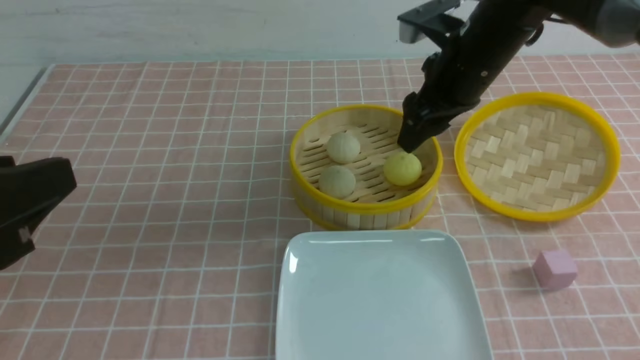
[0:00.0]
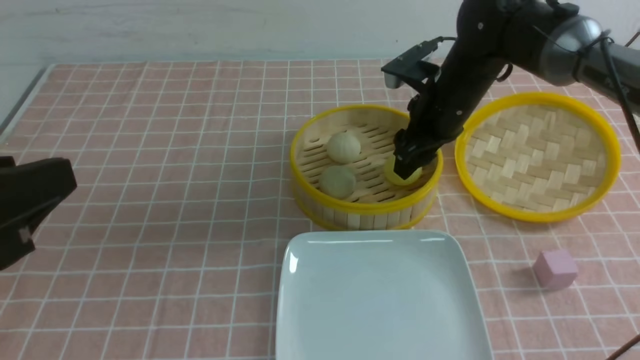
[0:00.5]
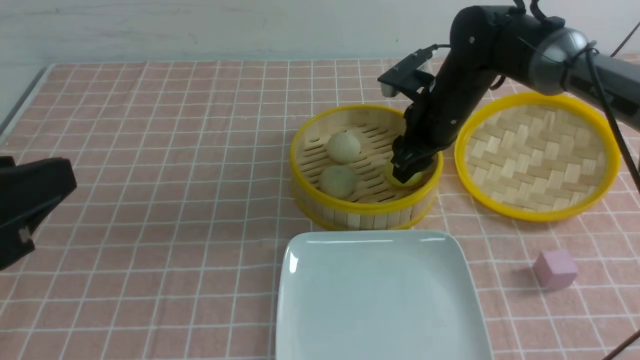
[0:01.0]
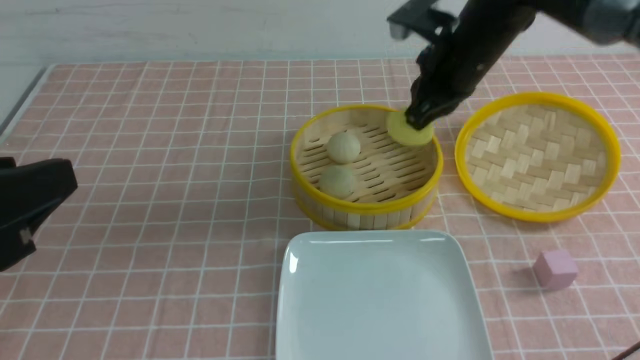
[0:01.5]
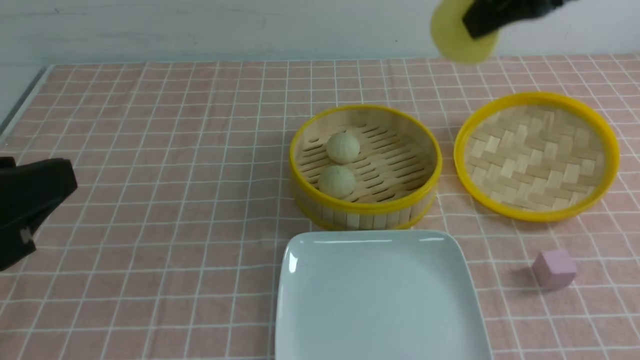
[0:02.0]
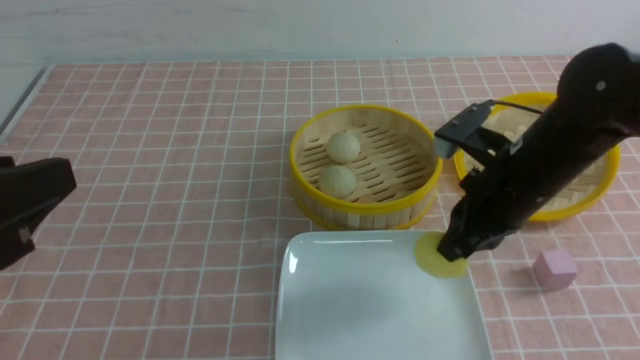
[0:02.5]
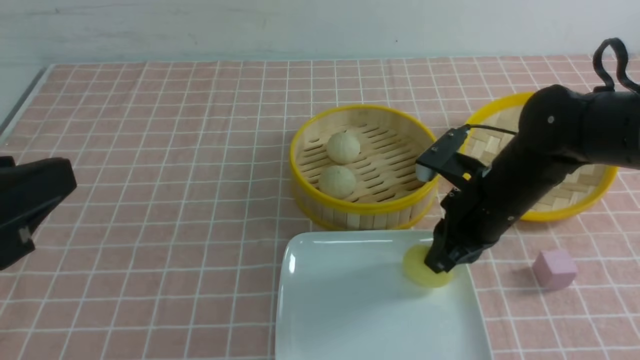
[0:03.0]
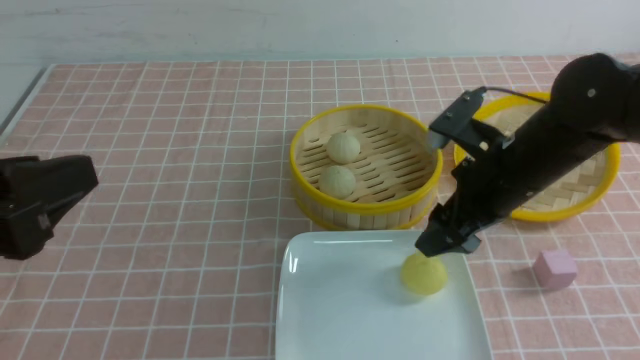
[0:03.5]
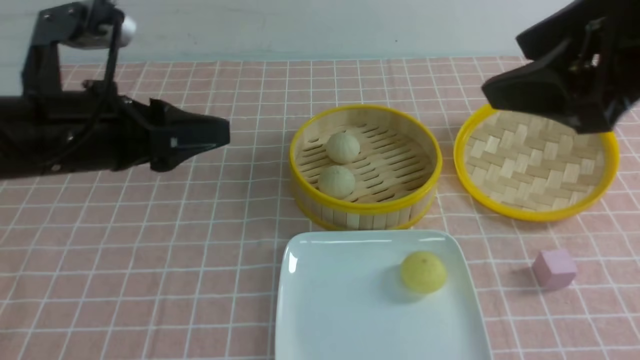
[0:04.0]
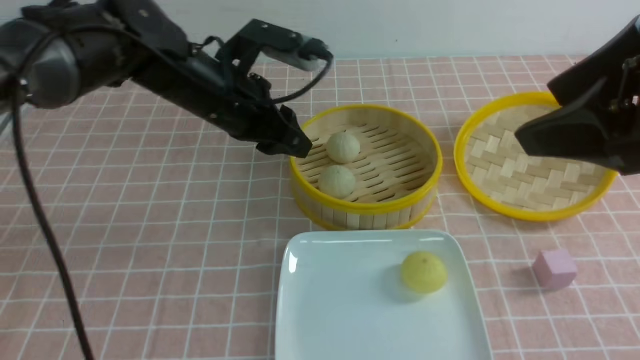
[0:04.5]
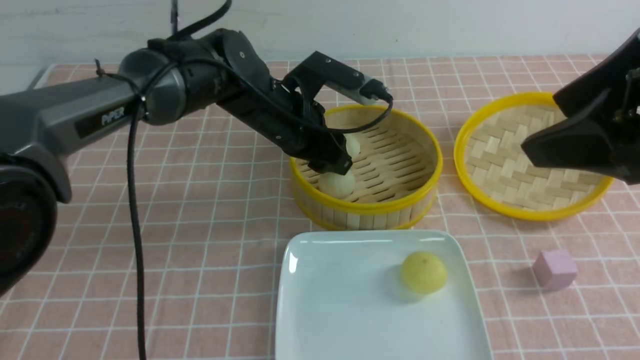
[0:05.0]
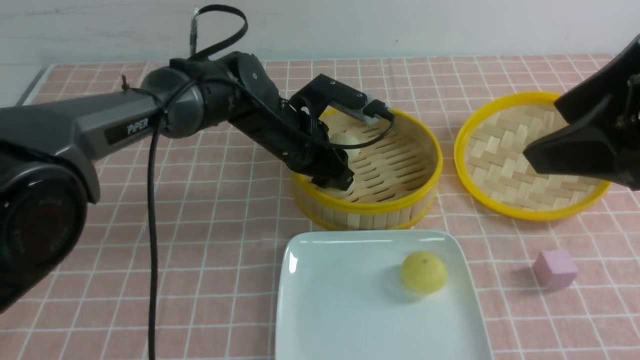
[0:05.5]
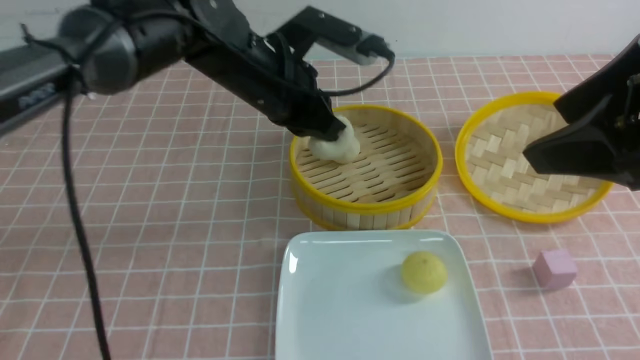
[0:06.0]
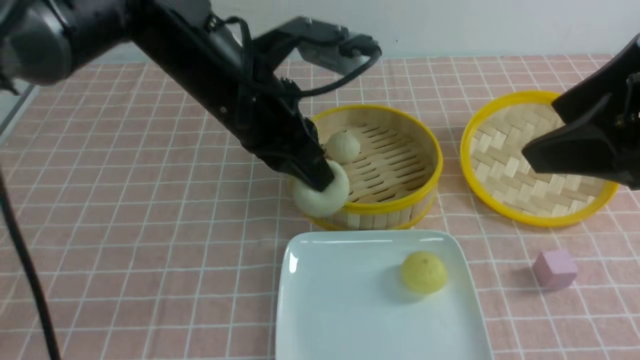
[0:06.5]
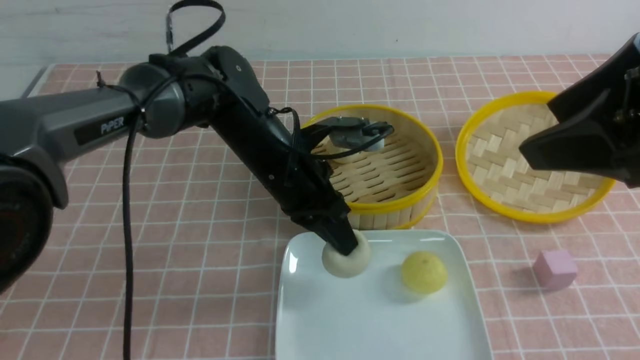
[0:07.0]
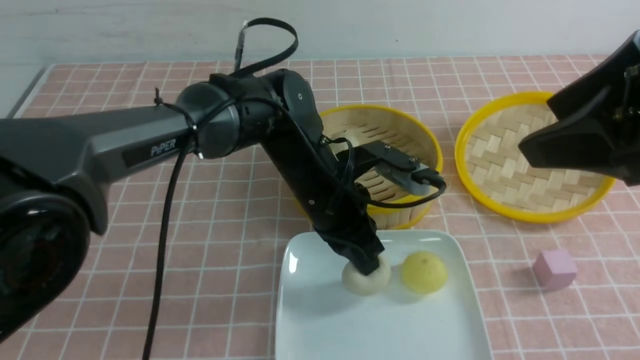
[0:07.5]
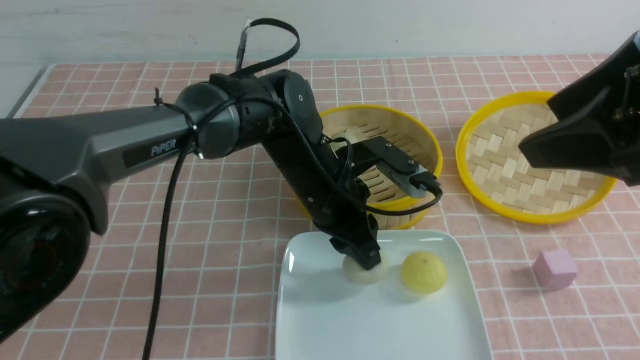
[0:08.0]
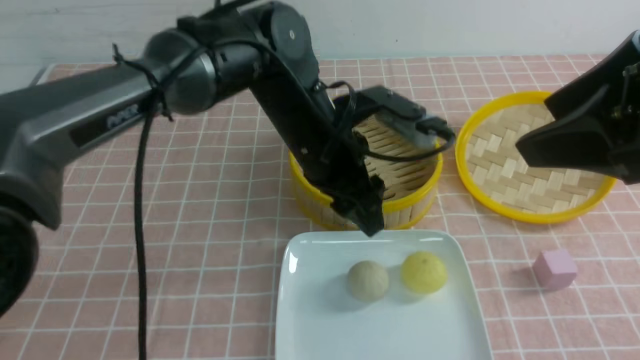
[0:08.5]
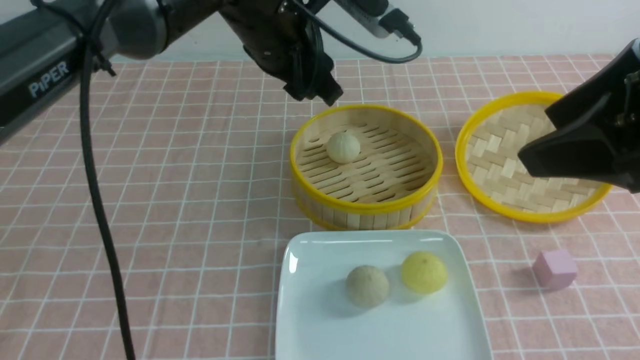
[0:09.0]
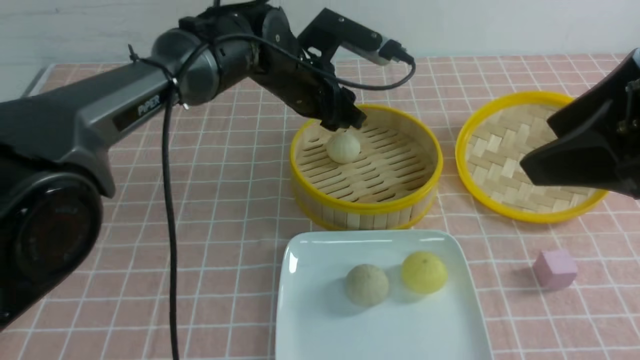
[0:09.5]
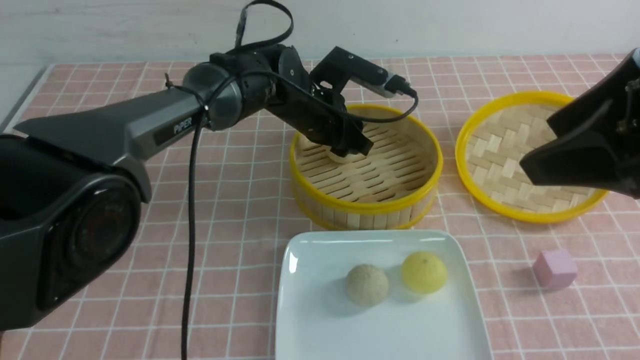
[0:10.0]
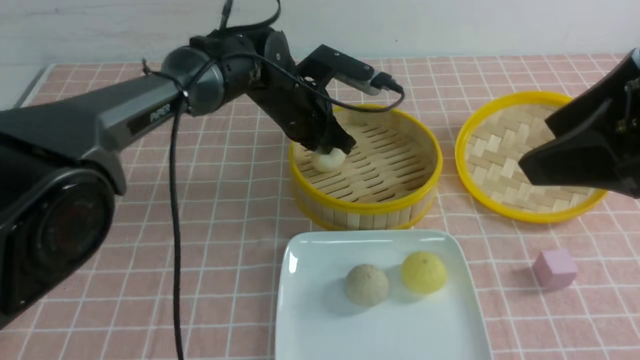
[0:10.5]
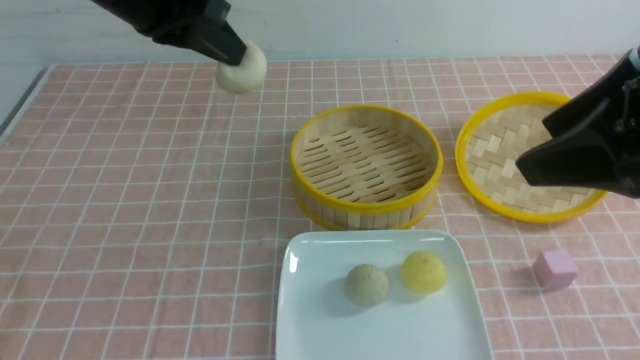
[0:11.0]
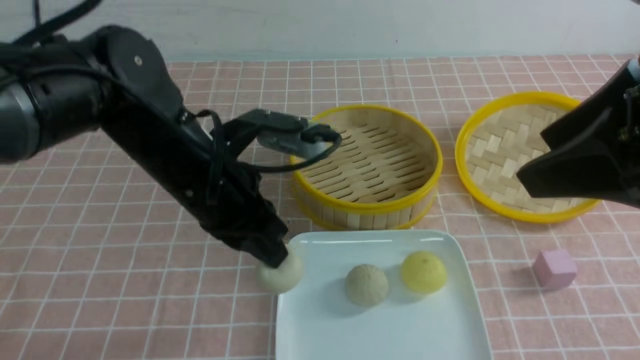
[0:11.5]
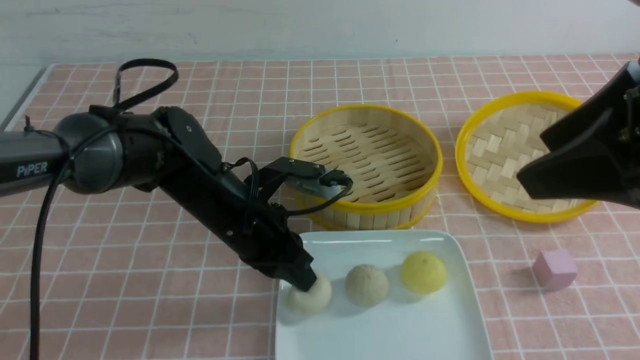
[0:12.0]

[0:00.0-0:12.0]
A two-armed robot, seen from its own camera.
Step, 0:01.5 to 0:03.0: use the right arm to put the steamed stuffed bun into the plate.
Step, 0:03.5 to 0:05.5: use the left arm to grab the steamed stuffed bun that is closest to it.
Step, 0:06.0 to 0:08.0: use the left arm to put the steamed stuffed bun into the plate.
Step, 0:08.5 to 0:10.0: use the left arm to grab the steamed stuffed bun that is closest to it.
0:00.0 to 0:02.0: The right gripper goes about 15 cm upward and backward, and closes up.
0:02.0 to 0:04.0: The left gripper heads forward, covering some 15 cm. The right gripper shifts approximately 10 cm backward, reaches roughly 20 cm downward, then returns, and opens its fingers.
0:04.0 to 0:06.0: The left gripper shifts about 15 cm to the right and forward, and closes up.
0:06.0 to 0:08.0: The left gripper is displaced downward and to the right by roughly 10 cm, and opens up.
0:08.0 to 0:10.0: The left gripper moves forward, roughly 10 cm, and goes upward and returns, about 15 cm each way.
0:10.0 to 0:12.0: The left gripper heads backward and to the left, covering roughly 15 cm, travels upward and back again, approximately 20 cm each way, and closes up.

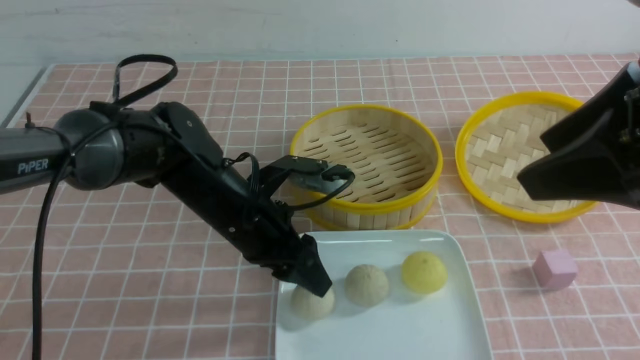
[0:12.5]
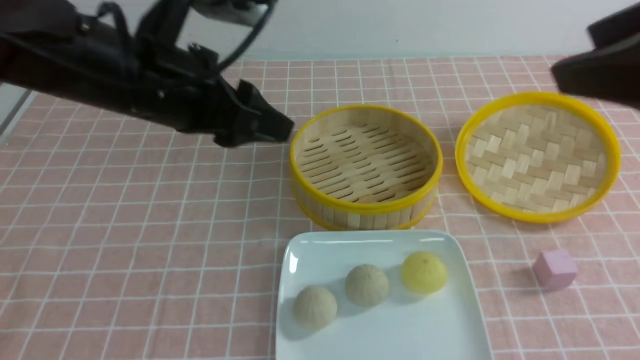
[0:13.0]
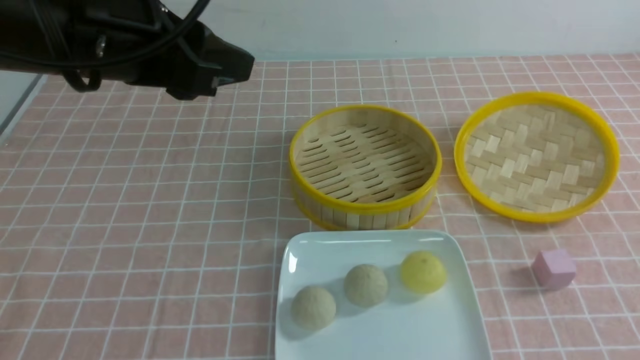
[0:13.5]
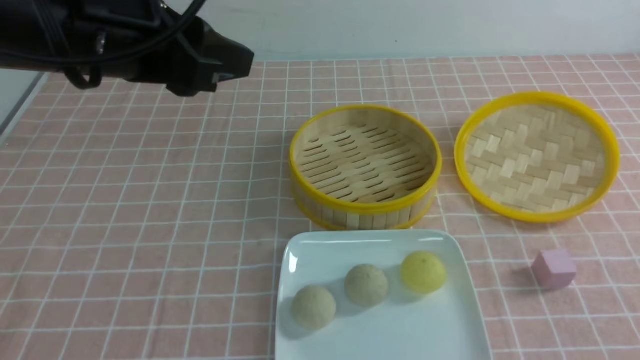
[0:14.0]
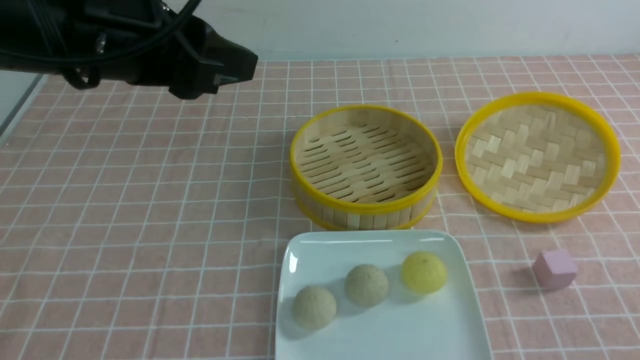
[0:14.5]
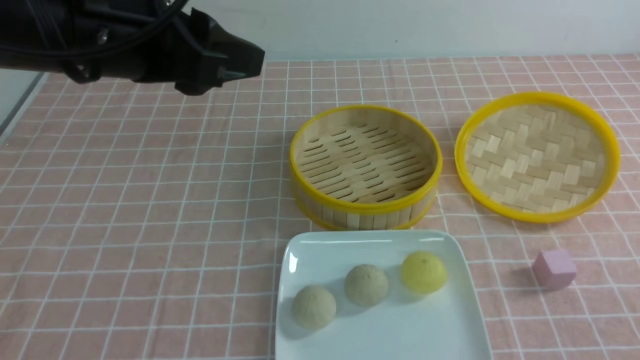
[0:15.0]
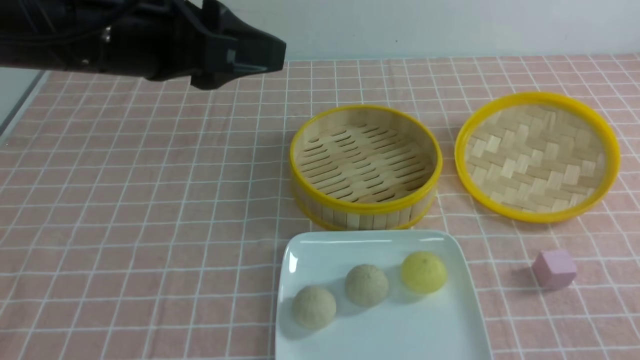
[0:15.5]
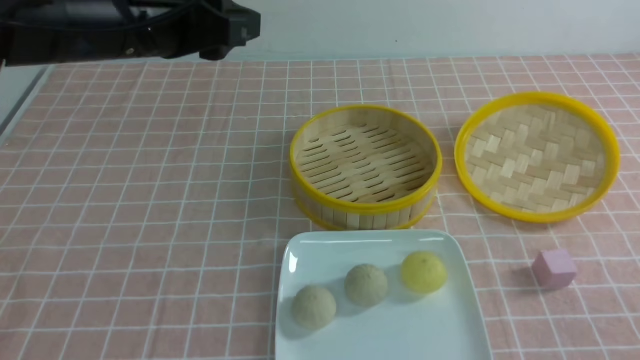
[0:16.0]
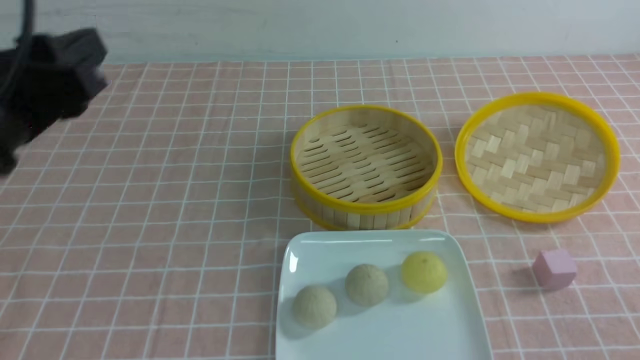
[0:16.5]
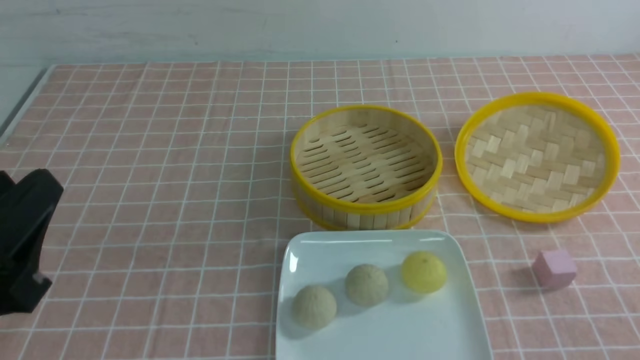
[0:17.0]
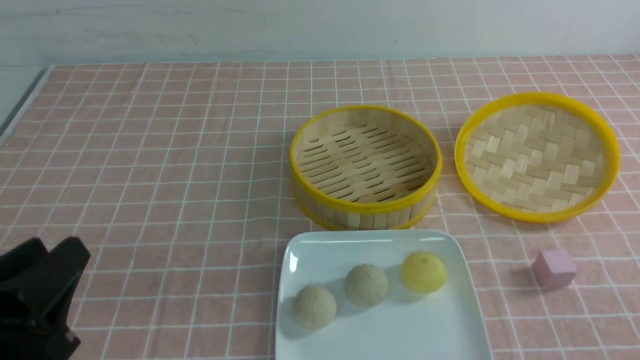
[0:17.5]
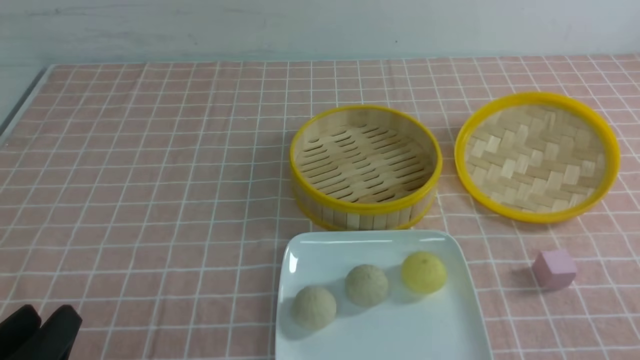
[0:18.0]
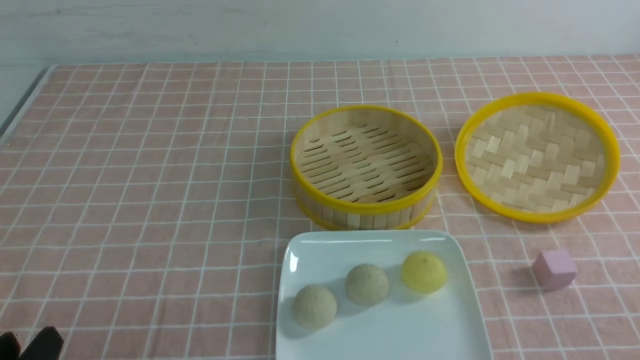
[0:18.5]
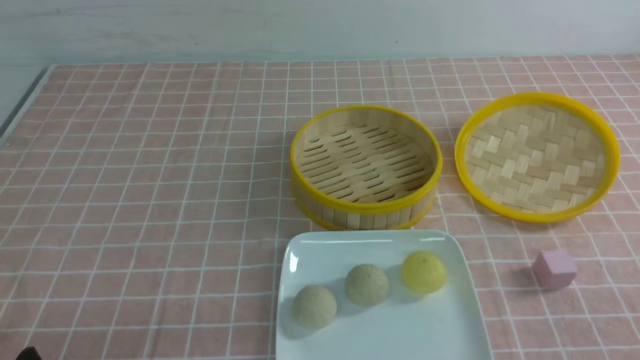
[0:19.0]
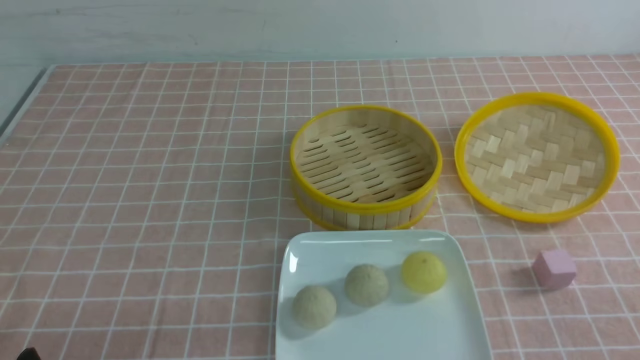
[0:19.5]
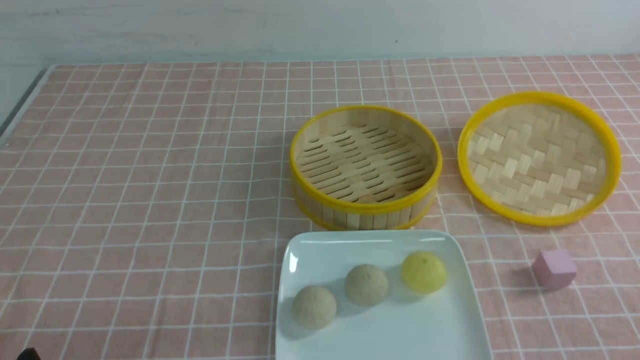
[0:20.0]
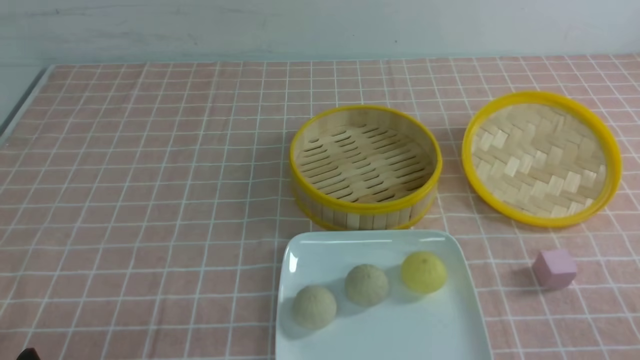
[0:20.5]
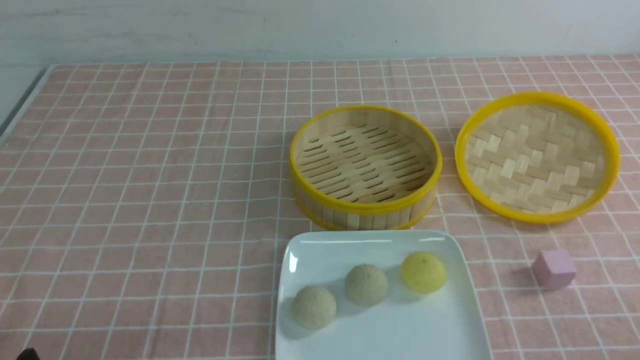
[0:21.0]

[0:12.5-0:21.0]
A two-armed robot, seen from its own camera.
0:12.5 to 0:14.5: The left gripper goes about 20 cm upward. Meanwhile the right gripper heads downward, backward and to the right, covering roughly 25 cm.
0:14.5 to 0:16.5: The left gripper travels backward and to the left by roughly 10 cm.
0:16.5 to 0:19.0: The left gripper travels downward and backward by approximately 20 cm.
